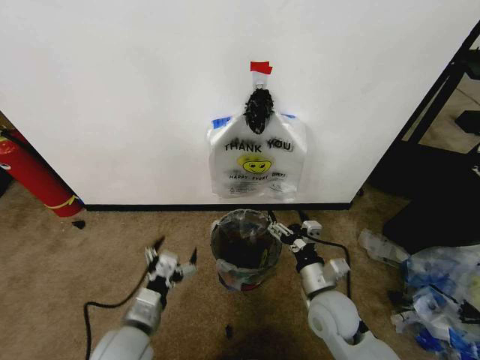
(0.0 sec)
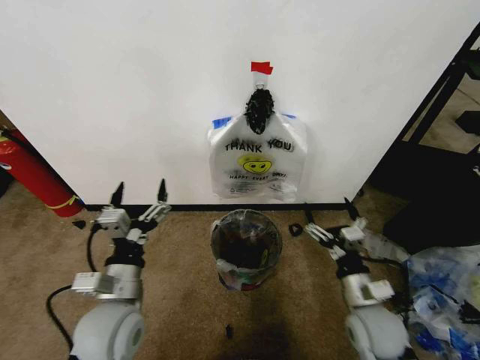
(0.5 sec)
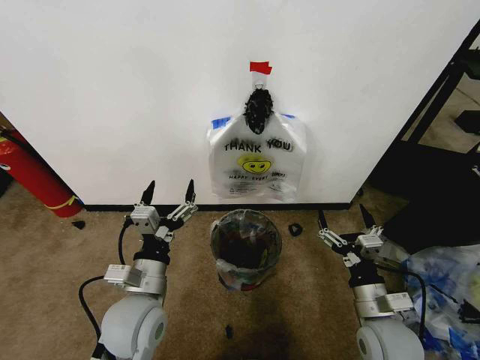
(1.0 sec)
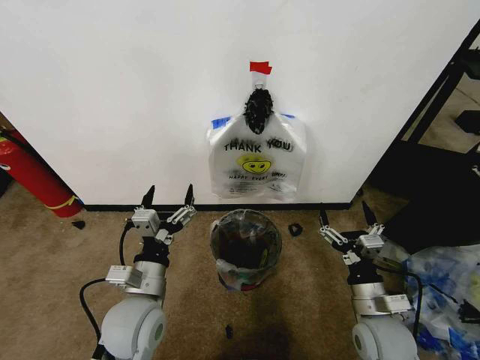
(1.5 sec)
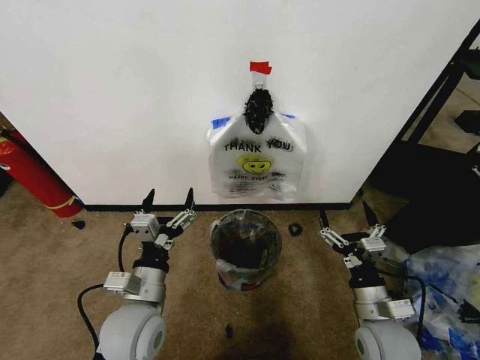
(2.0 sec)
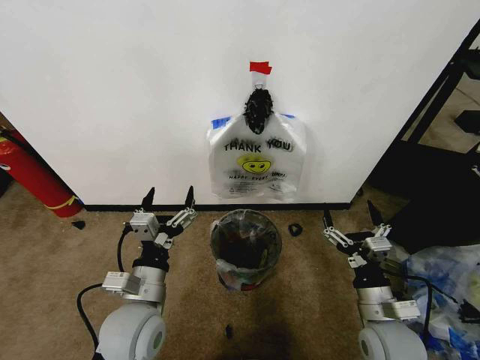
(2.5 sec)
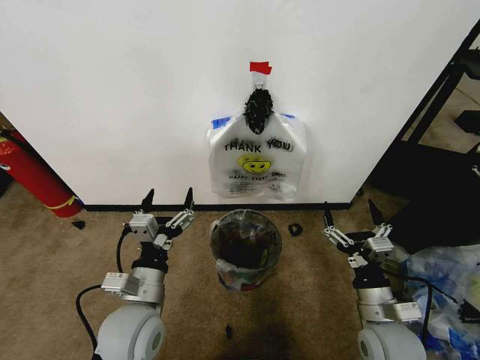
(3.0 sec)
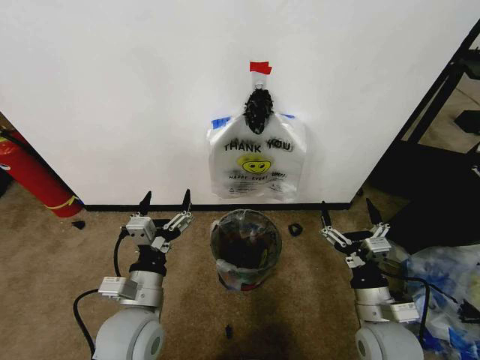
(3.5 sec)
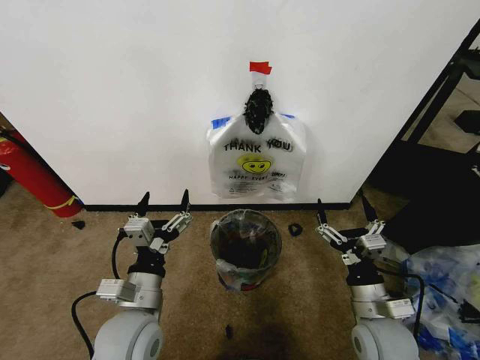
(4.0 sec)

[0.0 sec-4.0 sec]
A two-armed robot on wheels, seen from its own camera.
Task of the whole recording: Pick up the garbage bag from the wall and place it over the trash bin.
0.0 sec to 2.0 sec: The left gripper shifts some 5 cm upward, while the right gripper shifts approximately 10 cm to the right and backward.
2.0 sec to 4.0 sec: Both grippers stay about where they are.

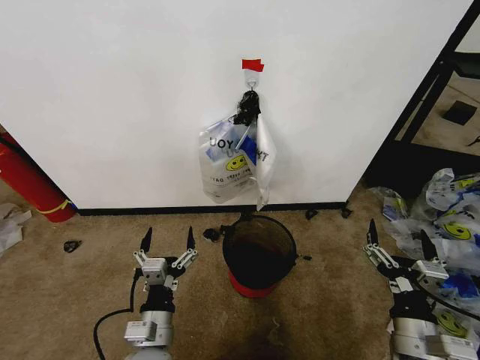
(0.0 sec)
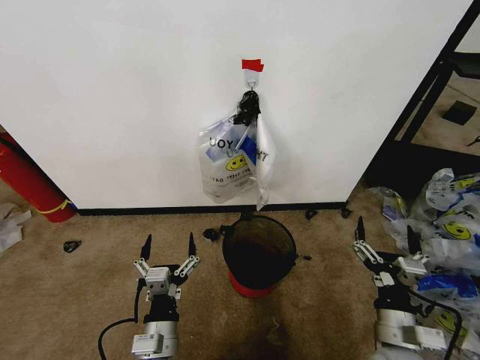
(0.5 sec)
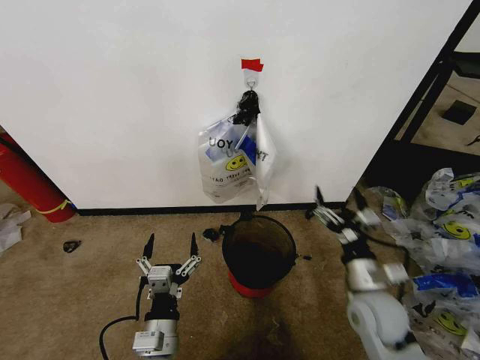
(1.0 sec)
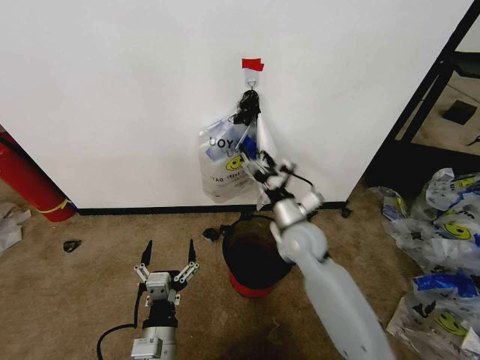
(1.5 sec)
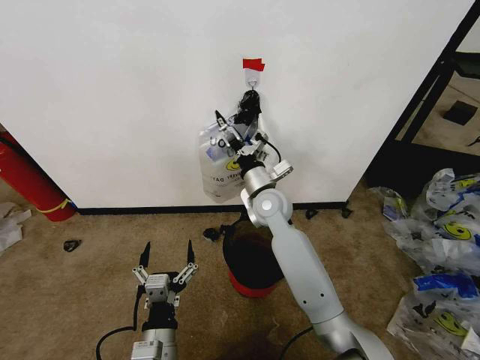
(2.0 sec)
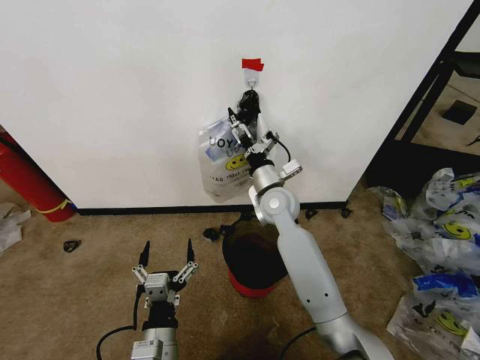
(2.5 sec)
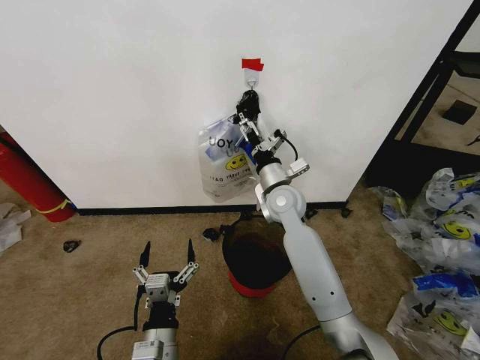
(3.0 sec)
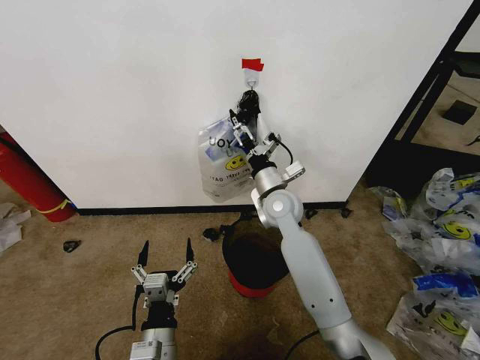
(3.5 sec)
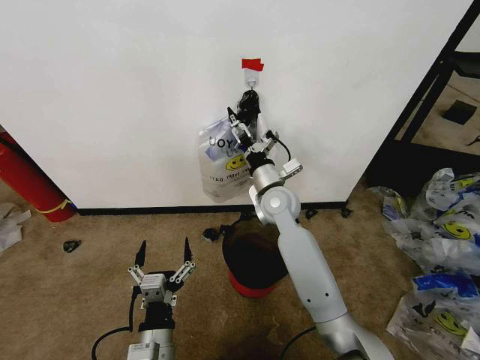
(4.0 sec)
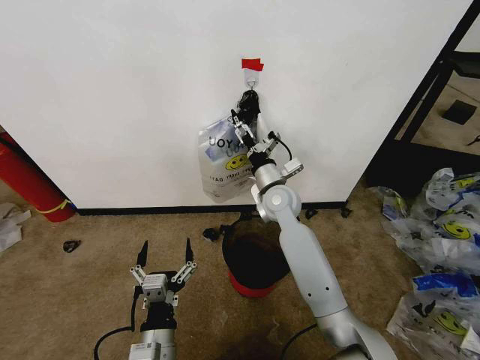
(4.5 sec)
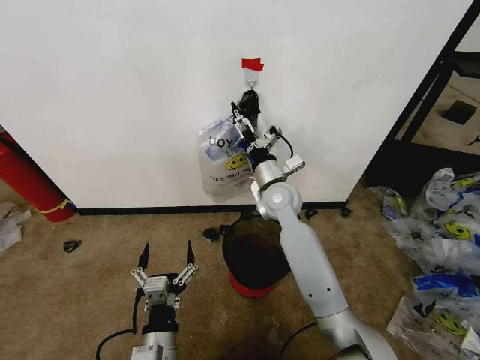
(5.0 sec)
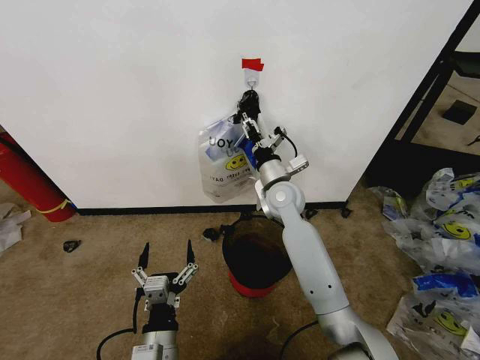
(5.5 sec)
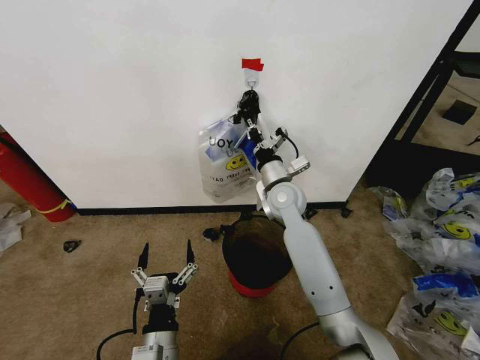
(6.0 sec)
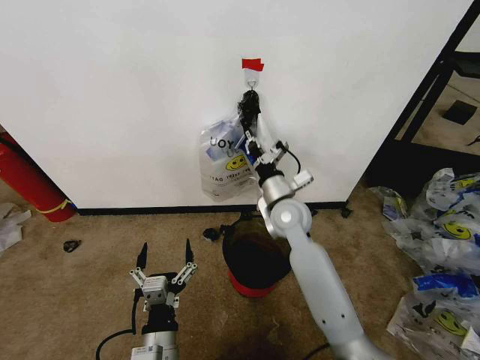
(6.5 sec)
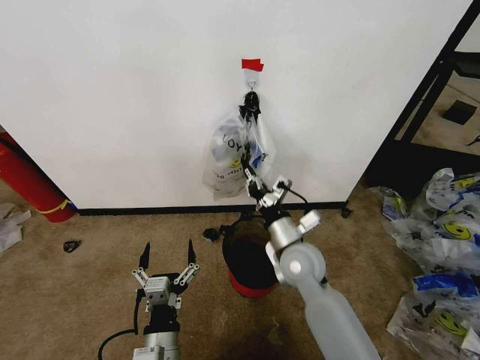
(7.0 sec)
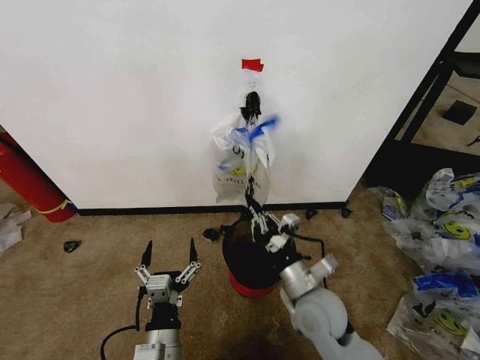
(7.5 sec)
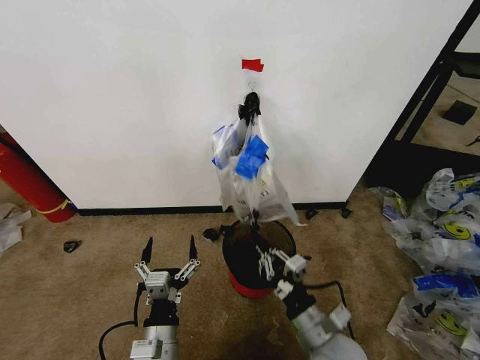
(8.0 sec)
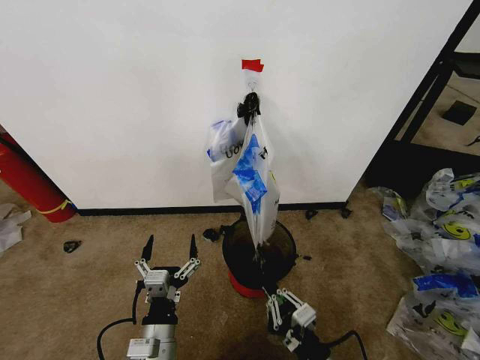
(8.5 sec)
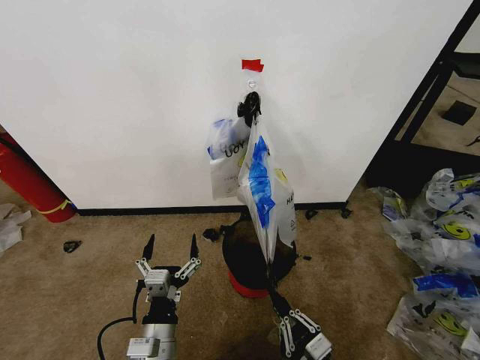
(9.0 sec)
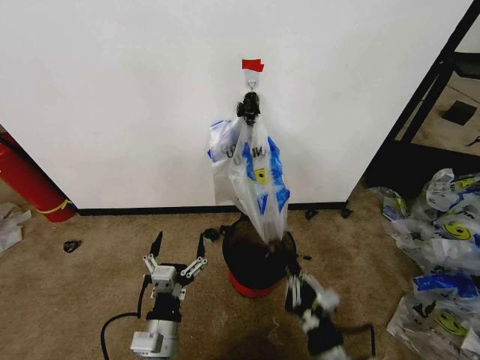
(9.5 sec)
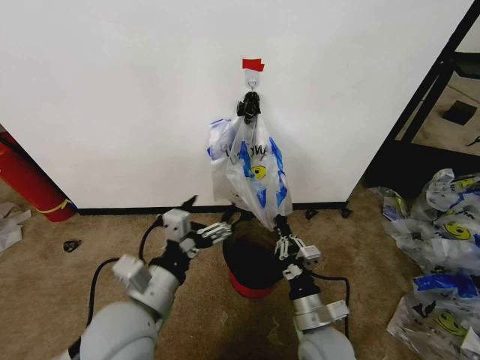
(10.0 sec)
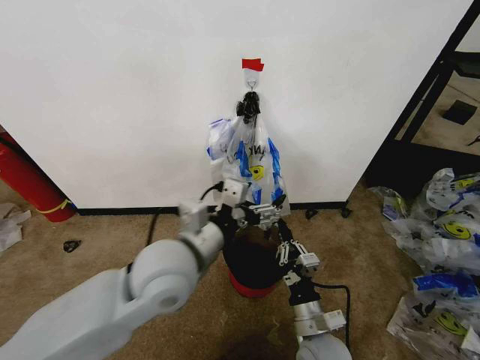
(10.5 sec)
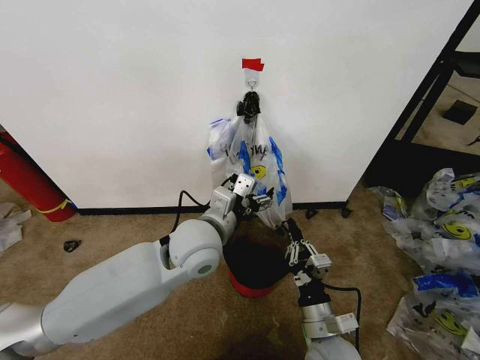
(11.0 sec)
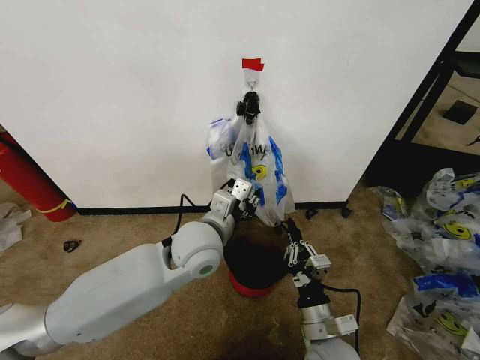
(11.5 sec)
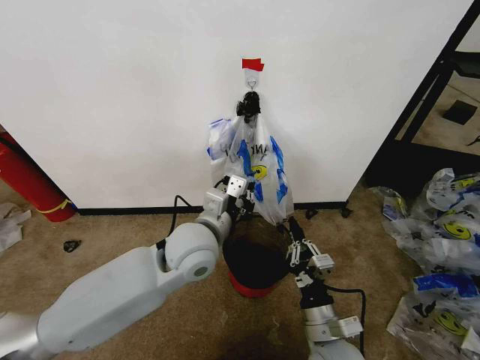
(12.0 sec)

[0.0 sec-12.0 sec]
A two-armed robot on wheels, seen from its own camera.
Task of the whole recording: Pick up the garbage bag from the wall and place it over the trash bin.
2.0 sec to 4.0 sec: There are only small adjustments of the grippers.
4.0 sec to 6.0 sec: The right gripper closes.
6.0 sec to 8.0 sec: The right gripper shifts approximately 30 cm backward.
8.0 sec to 10.0 sec: The left gripper travels upward by approximately 15 cm. The right gripper travels backward and back again, some 10 cm each way.
10.0 sec to 12.0 sec: The left gripper heads forward and to the right, covering approximately 15 cm, and closes.

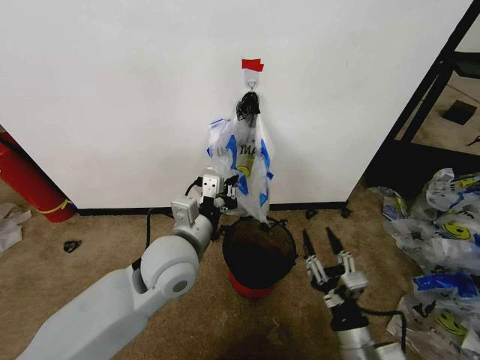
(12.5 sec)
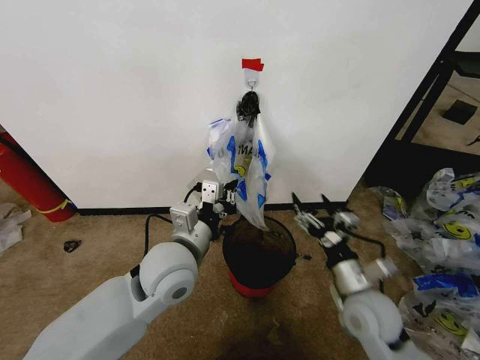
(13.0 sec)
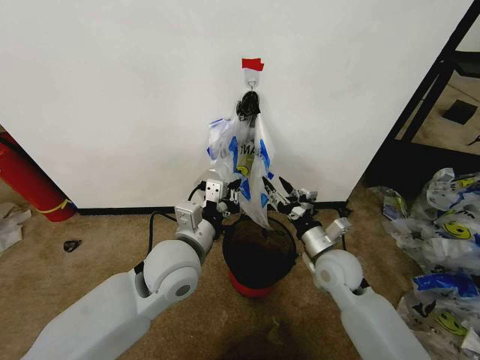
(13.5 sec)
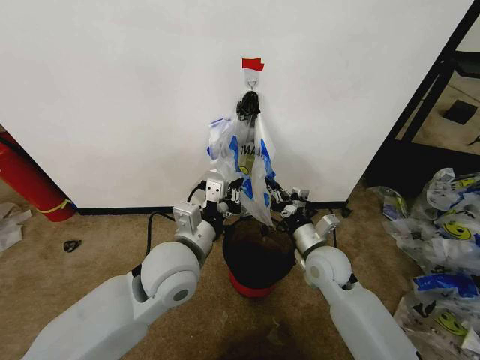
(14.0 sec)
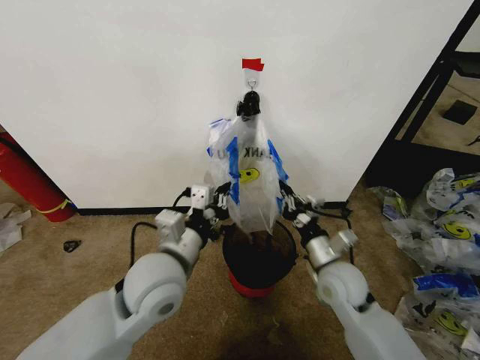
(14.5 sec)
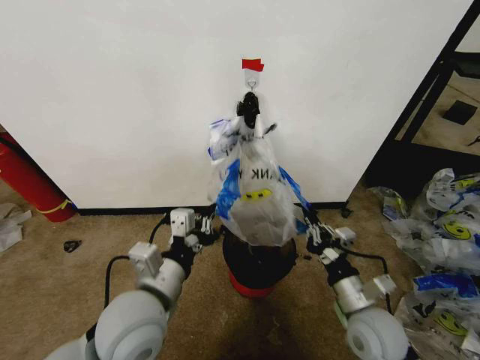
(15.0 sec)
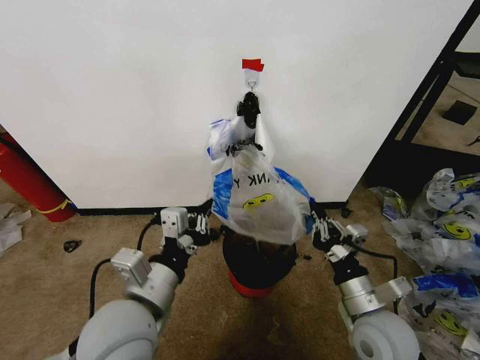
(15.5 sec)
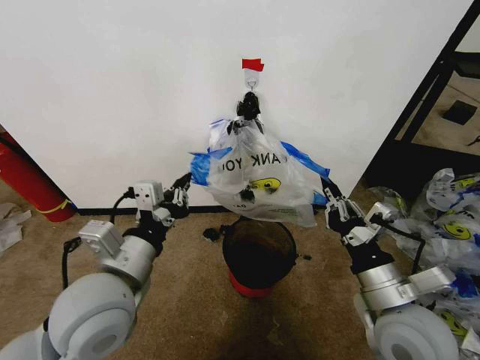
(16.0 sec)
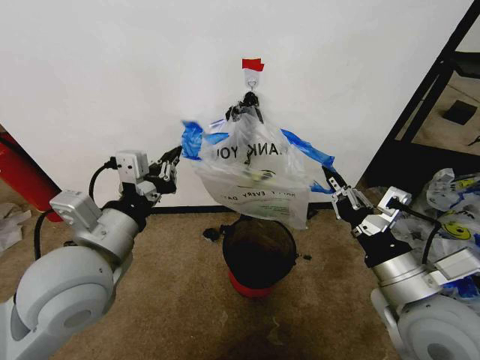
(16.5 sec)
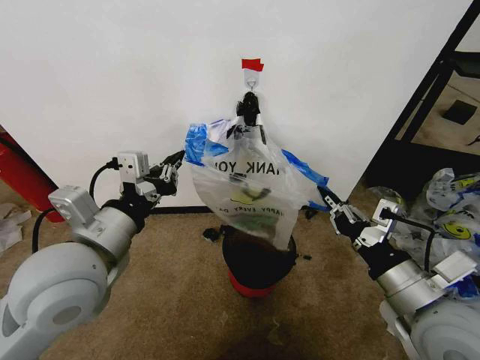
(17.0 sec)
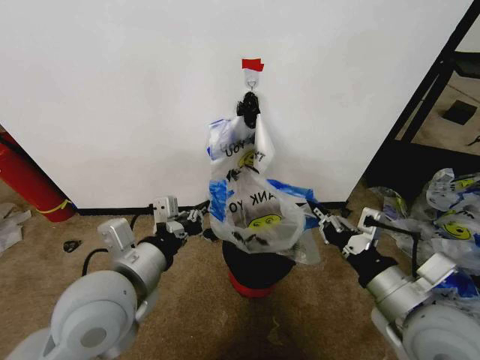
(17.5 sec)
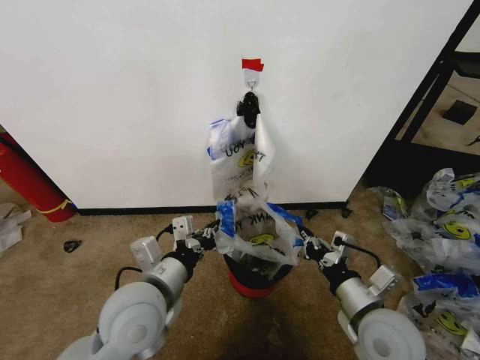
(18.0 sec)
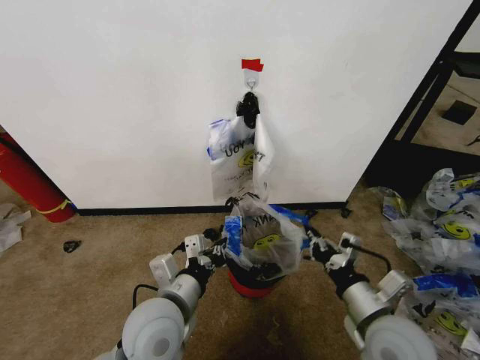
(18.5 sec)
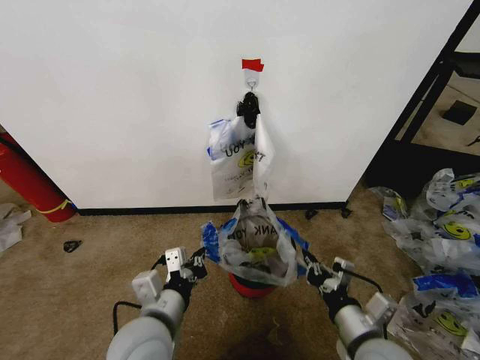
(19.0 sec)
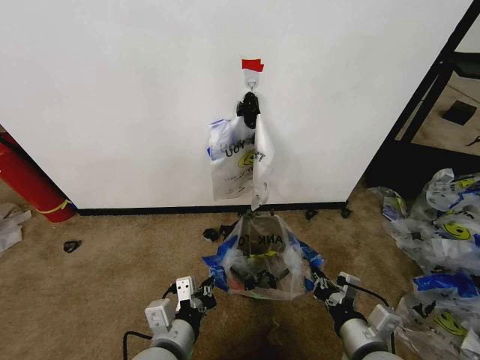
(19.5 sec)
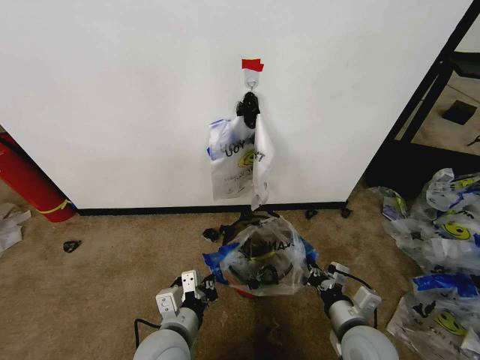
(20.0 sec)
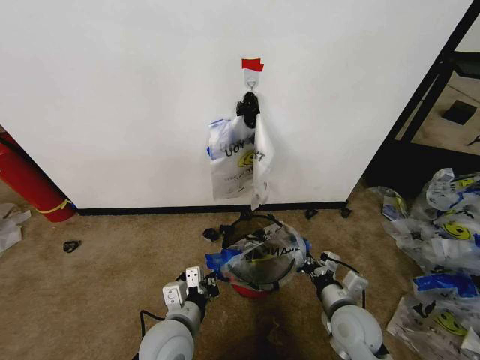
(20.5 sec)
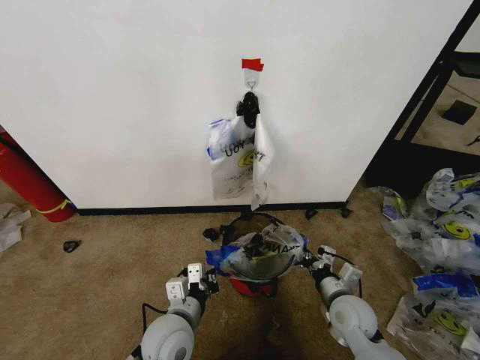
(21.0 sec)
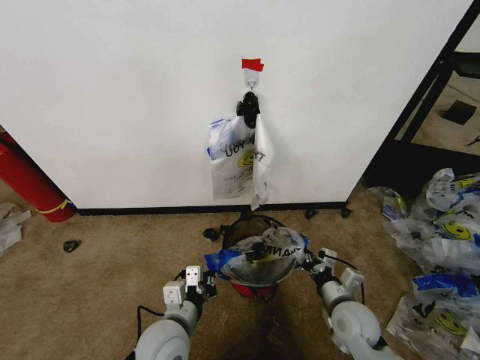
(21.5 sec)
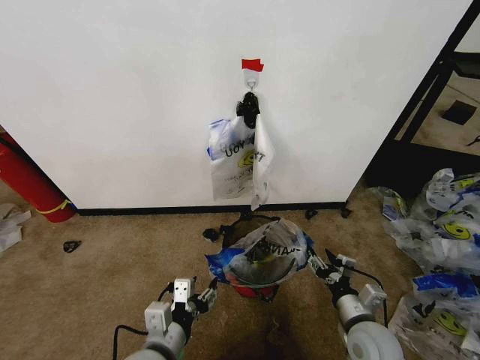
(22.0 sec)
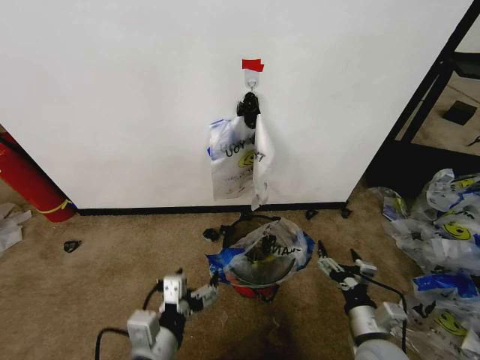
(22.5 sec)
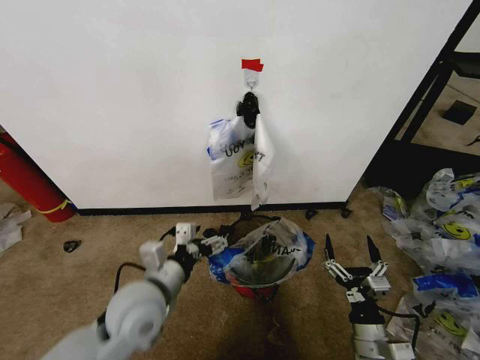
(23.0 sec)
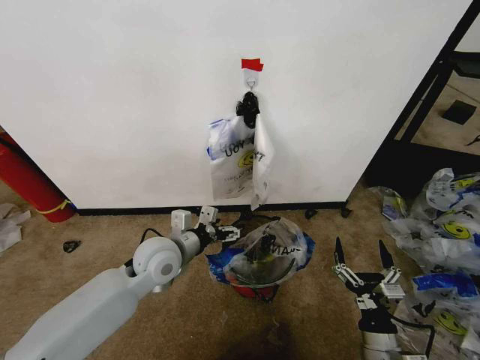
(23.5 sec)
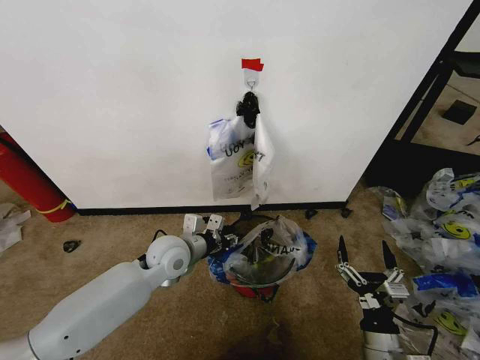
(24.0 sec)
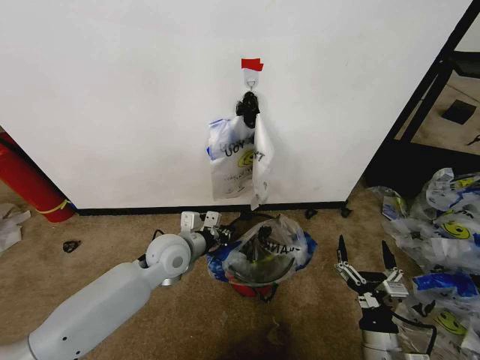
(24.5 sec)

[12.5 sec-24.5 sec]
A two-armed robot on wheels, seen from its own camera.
Task of the whole recording: Pick up the garbage bag from the wall and place it over the trash bin.
12.5 sec to 14.5 sec: The right gripper is displaced forward by about 15 cm, and closes.
14.5 sec to 16.5 sec: The left gripper moves upward and to the left, about 10 cm; the right gripper travels upward and backward by roughly 20 cm.
16.5 sec to 18.5 sec: The left gripper is displaced downward and to the right by approximately 15 cm. Meanwhile the right gripper moves downward, roughly 10 cm.
18.5 sec to 20.5 sec: The right gripper is displaced downward and forward by roughly 10 cm; the left gripper moves downward, approximately 10 cm.
20.5 sec to 22.5 sec: The left gripper travels backward and upward by roughly 10 cm, and opens up. The right gripper heads backward, covering roughly 5 cm, and opens.
22.5 sec to 24.5 sec: The left gripper heads forward, covering approximately 25 cm, and closes up.
